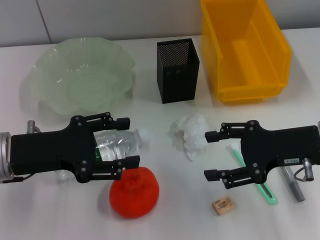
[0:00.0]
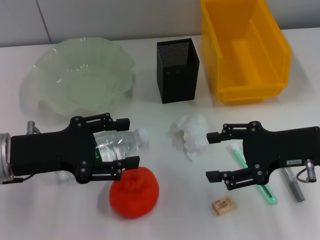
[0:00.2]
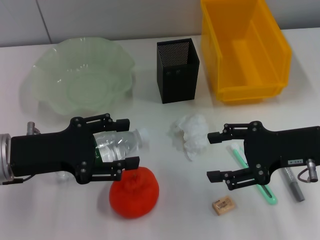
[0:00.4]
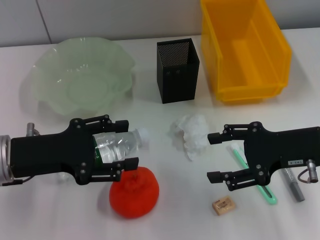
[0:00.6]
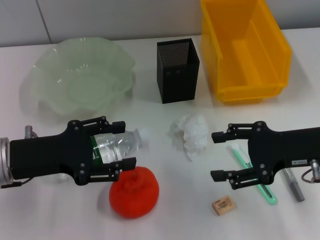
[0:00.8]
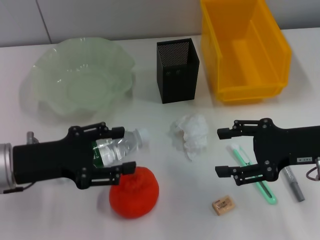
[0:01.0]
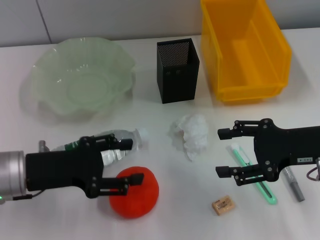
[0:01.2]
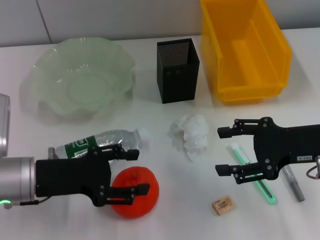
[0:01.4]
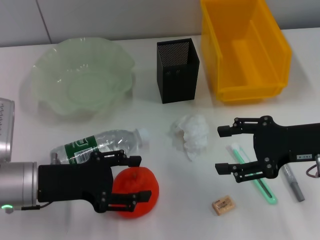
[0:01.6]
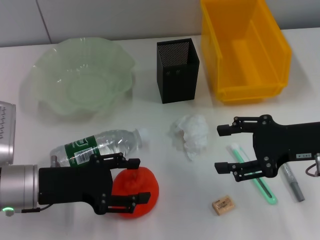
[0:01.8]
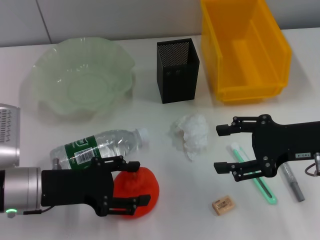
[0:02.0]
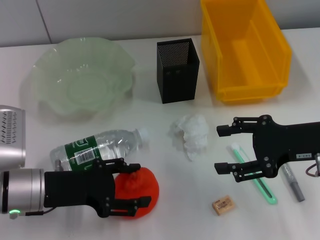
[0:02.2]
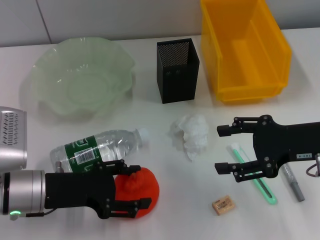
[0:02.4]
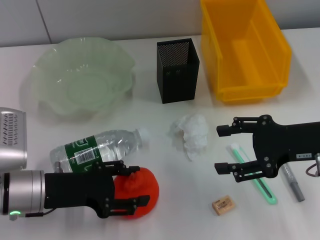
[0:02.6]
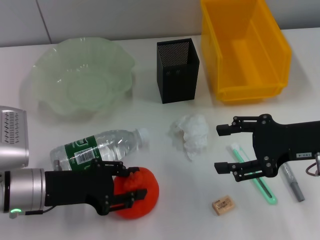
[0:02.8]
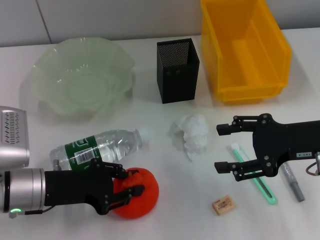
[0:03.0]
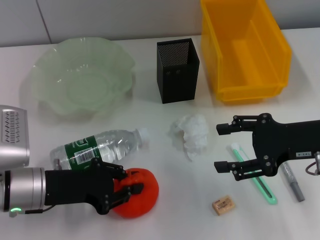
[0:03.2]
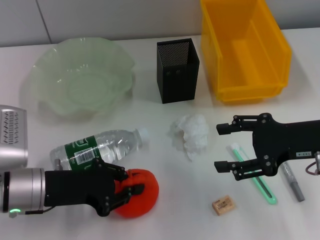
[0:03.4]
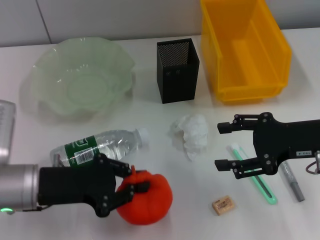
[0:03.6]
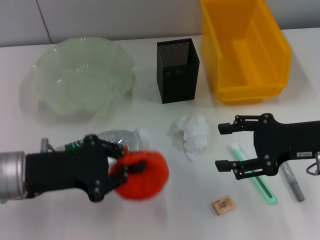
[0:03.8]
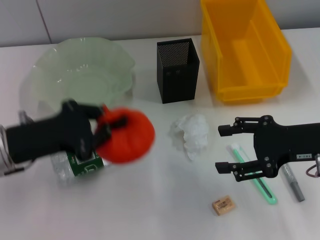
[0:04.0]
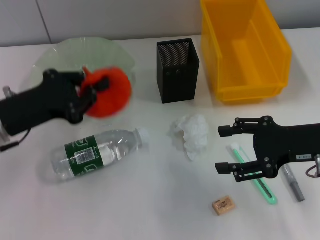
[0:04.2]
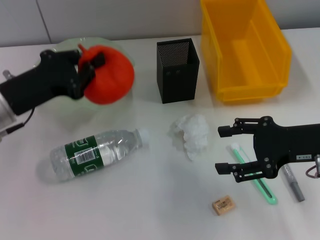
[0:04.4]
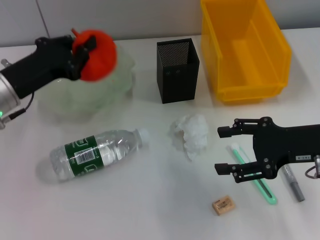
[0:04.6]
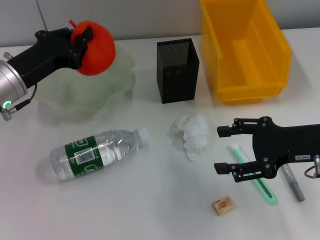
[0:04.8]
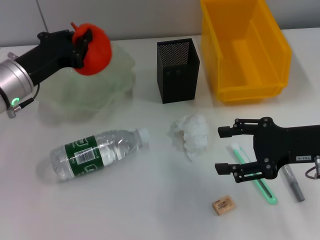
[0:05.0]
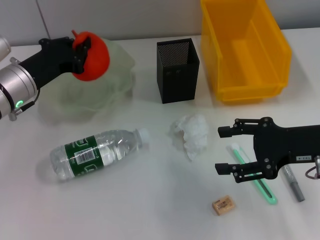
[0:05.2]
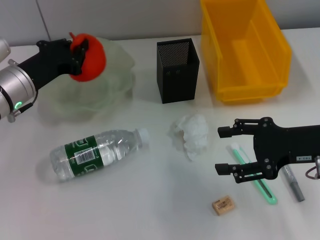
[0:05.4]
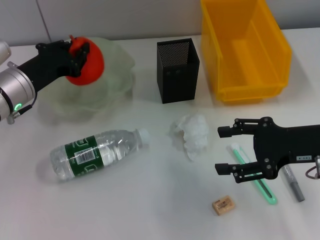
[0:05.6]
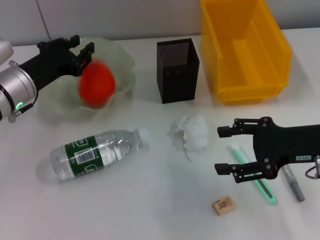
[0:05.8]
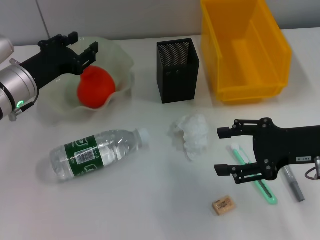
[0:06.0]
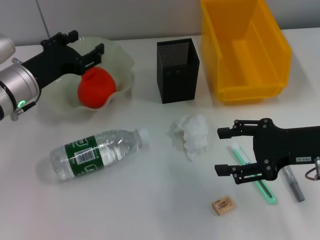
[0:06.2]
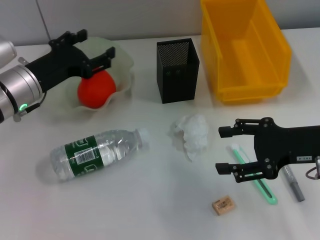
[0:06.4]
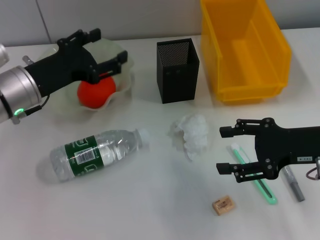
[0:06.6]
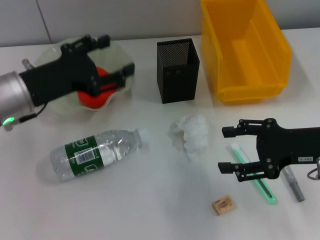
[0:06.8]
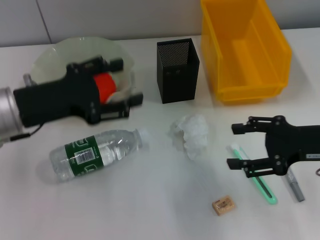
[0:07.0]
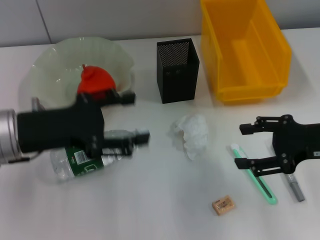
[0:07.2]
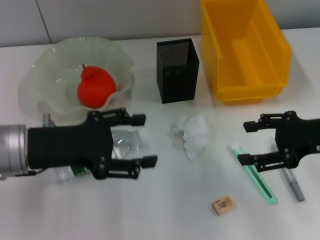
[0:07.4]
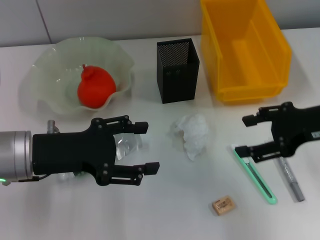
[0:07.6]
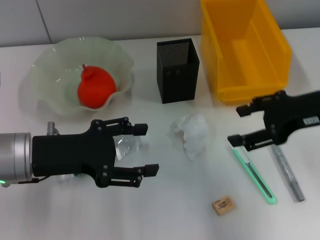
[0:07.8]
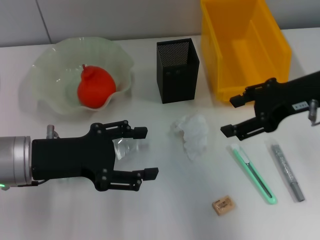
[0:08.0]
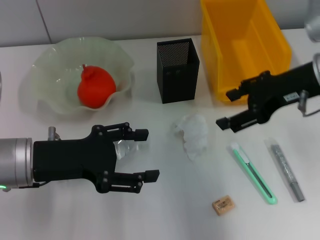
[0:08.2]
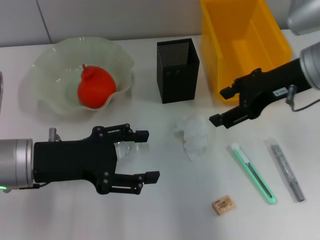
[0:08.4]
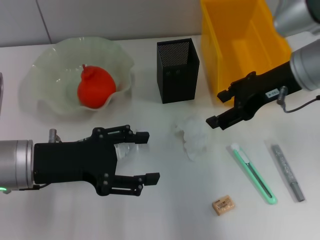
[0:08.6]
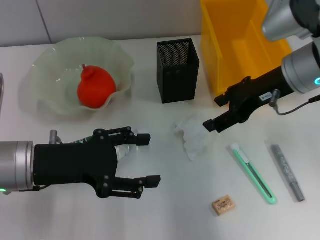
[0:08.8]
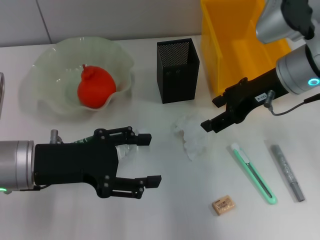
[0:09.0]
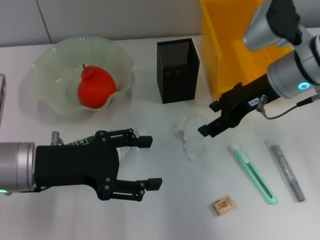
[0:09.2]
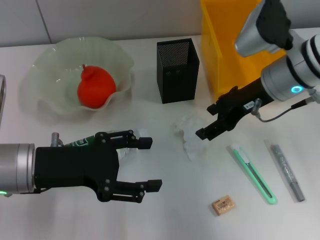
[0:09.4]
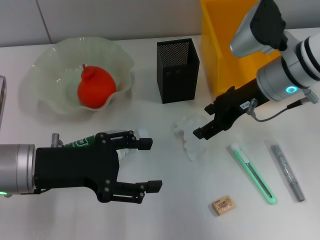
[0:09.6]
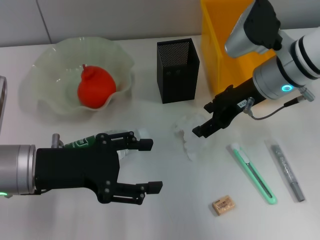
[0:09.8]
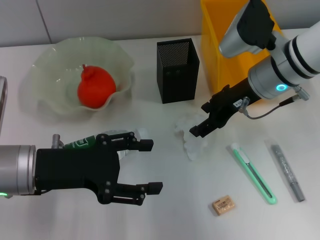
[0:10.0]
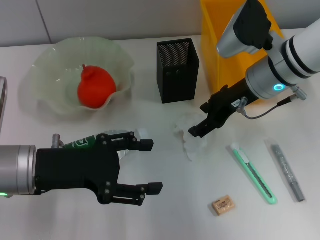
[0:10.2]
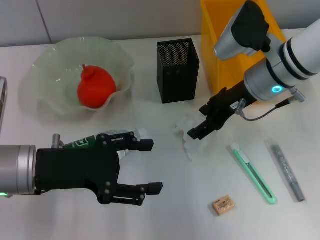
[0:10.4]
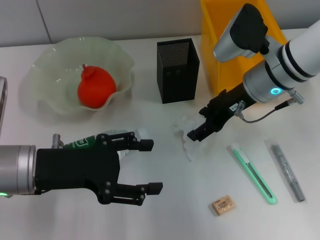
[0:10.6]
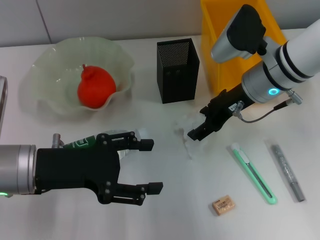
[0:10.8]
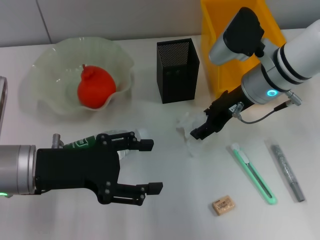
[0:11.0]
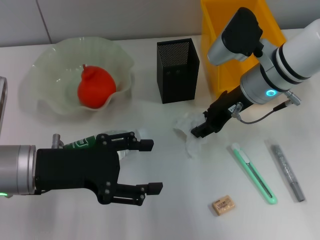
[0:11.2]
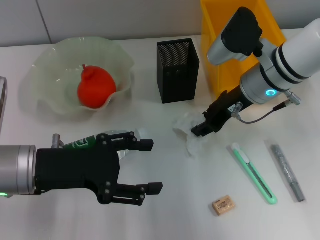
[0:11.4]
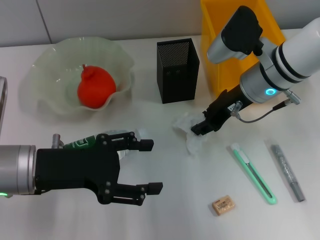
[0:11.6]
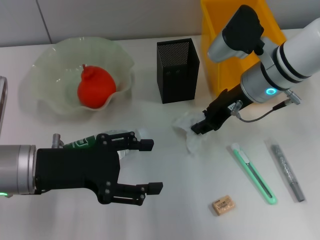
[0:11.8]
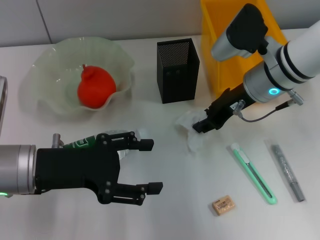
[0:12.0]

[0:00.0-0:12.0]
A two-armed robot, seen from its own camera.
Step, 0:00.0 to 0:03.0: Grab the orange with the left hand.
Step, 0:03.2 to 0:06.0: Place the orange into the fruit bowl with the left hand.
Step, 0:06.2 to 0:11.6: Grab the paper ball with the right hand.
0:00.0 to 0:01.6: There are only small adjustments of the grippers.
0:01.6 to 0:03.0: The left gripper closes its fingers.
0:03.0 to 0:04.4: The left gripper goes approximately 10 cm upward and forward, and closes up.
0:04.4 to 0:06.0: The left gripper is displaced forward by some 5 cm.
0:06.0 to 0:07.6: The left gripper heads backward, covering roughly 10 cm, and opens up.
0:07.6 to 0:09.0: The right gripper goes approximately 10 cm forward and to the left.
0:09.0 to 0:10.4: The grippers make only small movements.
0:10.4 to 0:12.0: The right gripper closes its fingers.

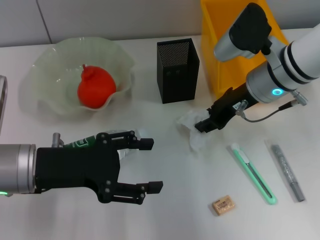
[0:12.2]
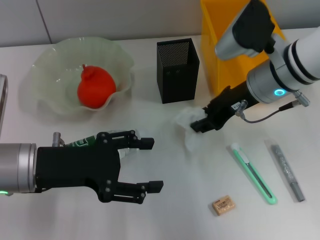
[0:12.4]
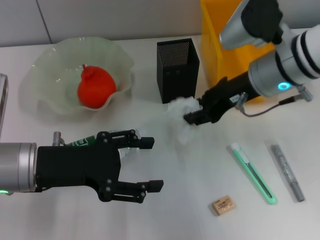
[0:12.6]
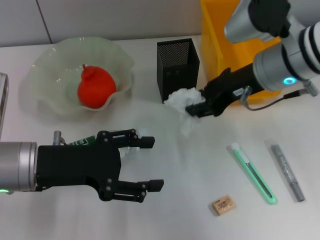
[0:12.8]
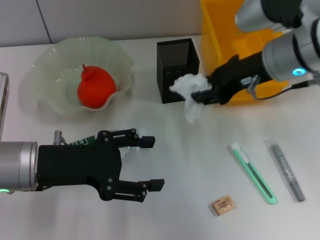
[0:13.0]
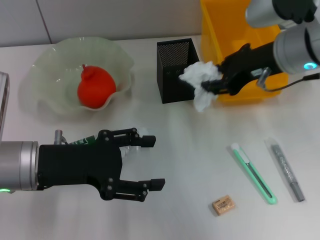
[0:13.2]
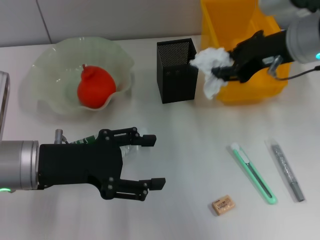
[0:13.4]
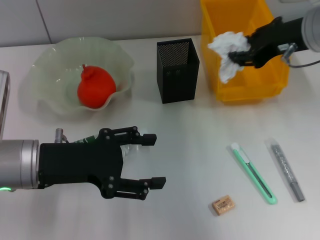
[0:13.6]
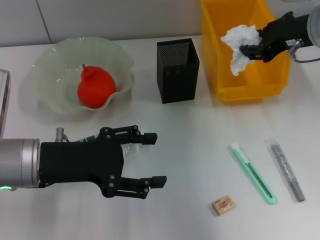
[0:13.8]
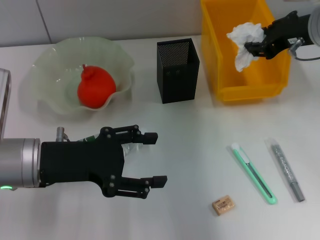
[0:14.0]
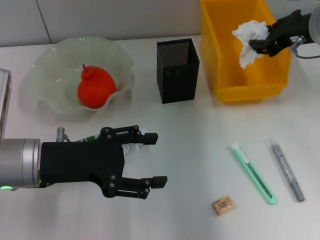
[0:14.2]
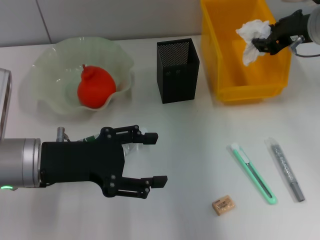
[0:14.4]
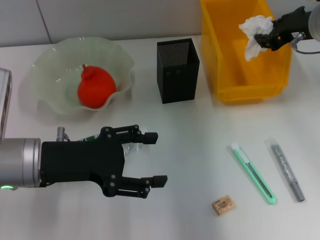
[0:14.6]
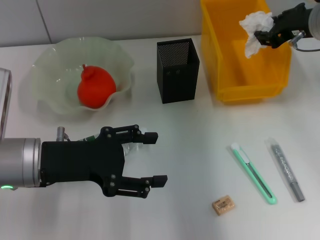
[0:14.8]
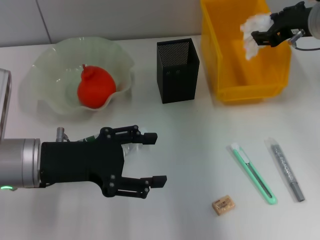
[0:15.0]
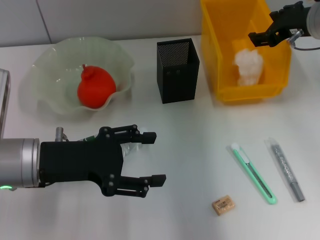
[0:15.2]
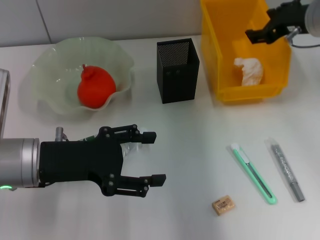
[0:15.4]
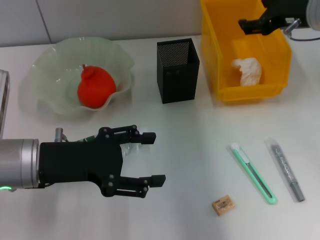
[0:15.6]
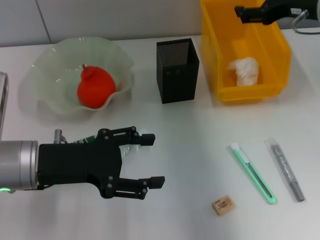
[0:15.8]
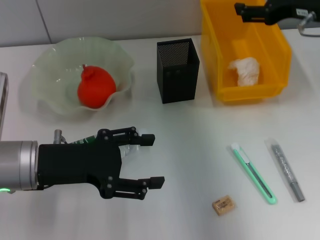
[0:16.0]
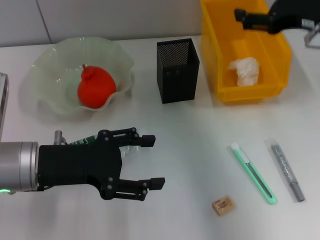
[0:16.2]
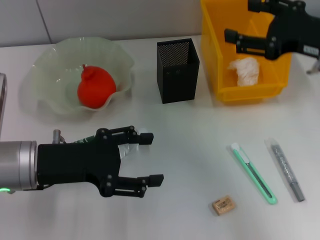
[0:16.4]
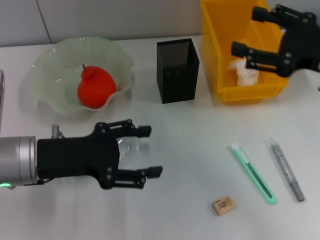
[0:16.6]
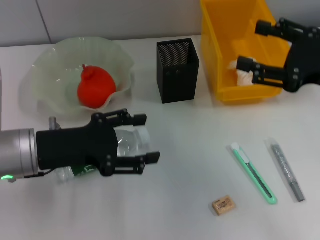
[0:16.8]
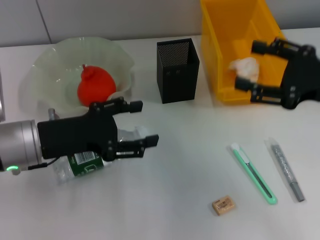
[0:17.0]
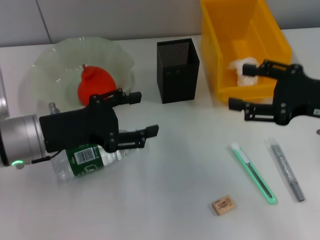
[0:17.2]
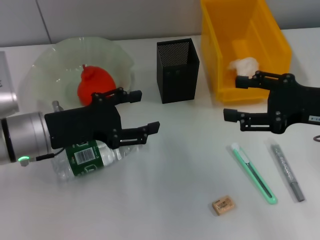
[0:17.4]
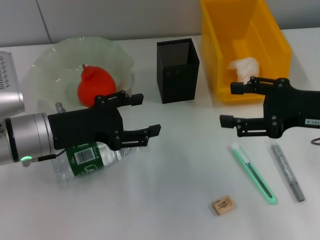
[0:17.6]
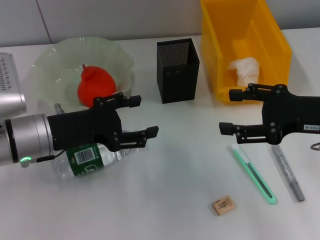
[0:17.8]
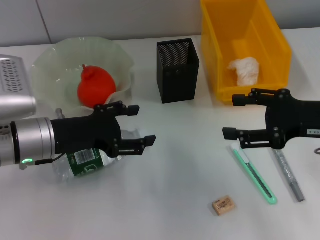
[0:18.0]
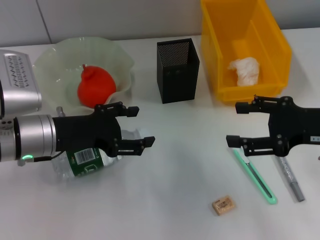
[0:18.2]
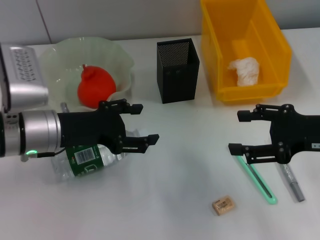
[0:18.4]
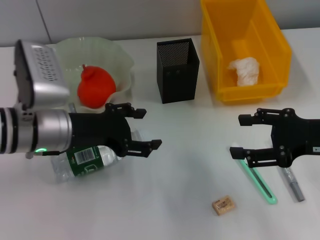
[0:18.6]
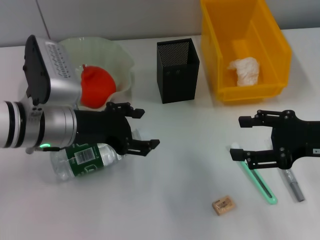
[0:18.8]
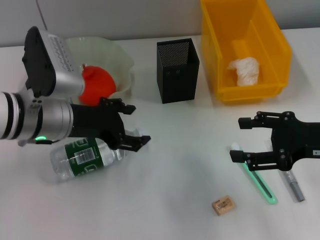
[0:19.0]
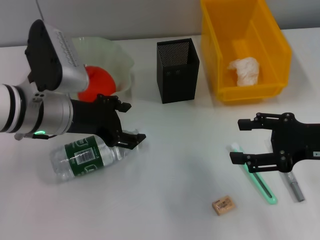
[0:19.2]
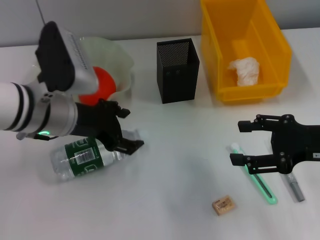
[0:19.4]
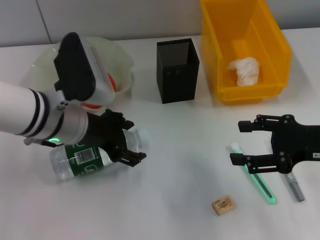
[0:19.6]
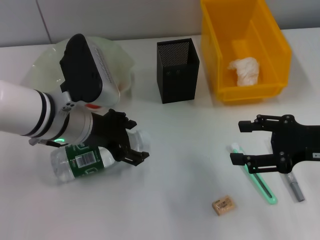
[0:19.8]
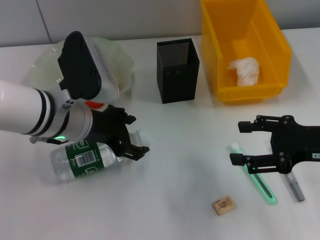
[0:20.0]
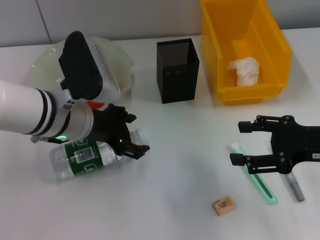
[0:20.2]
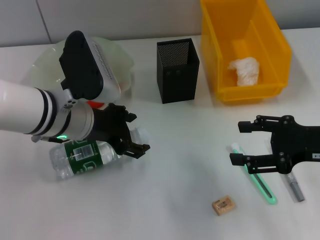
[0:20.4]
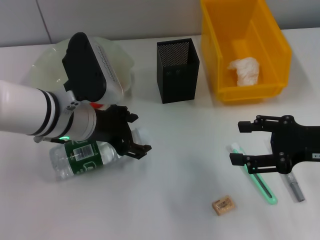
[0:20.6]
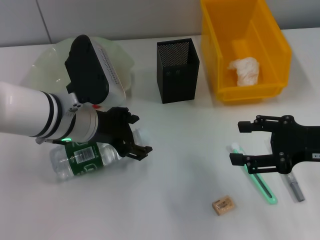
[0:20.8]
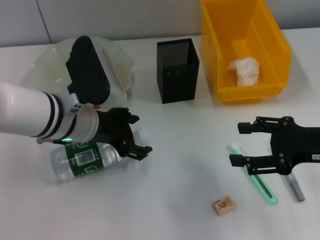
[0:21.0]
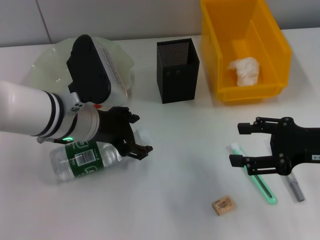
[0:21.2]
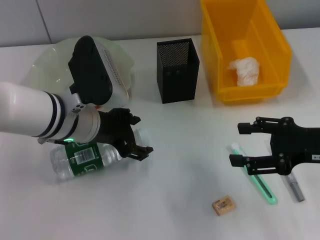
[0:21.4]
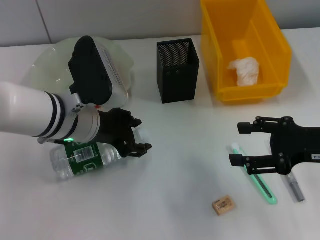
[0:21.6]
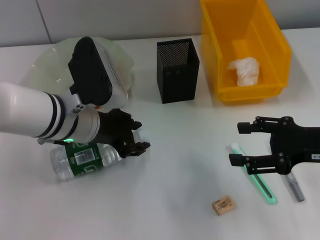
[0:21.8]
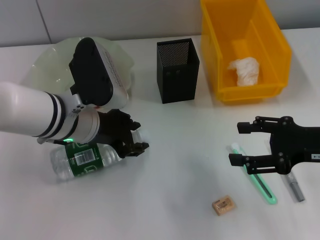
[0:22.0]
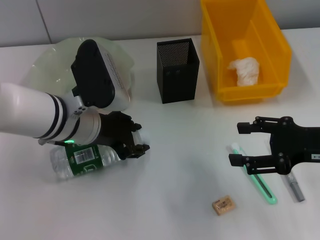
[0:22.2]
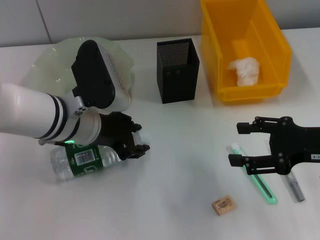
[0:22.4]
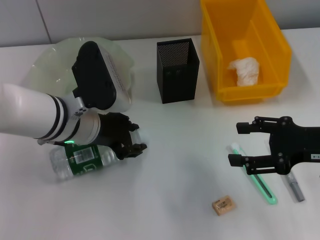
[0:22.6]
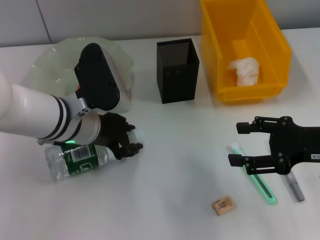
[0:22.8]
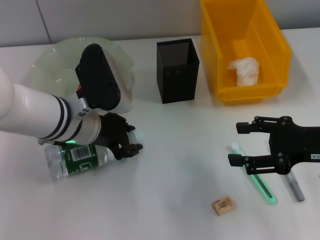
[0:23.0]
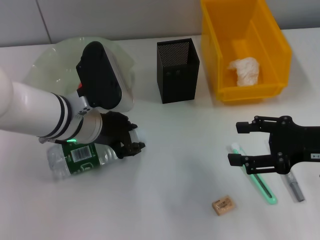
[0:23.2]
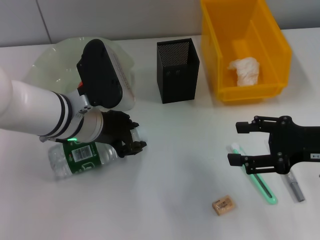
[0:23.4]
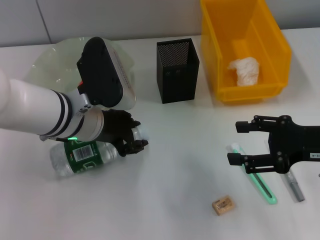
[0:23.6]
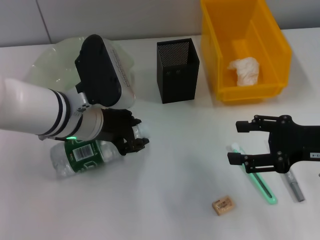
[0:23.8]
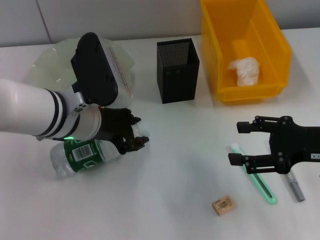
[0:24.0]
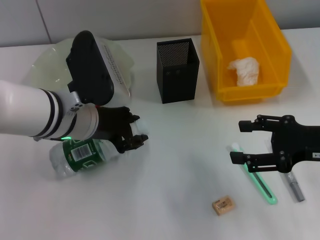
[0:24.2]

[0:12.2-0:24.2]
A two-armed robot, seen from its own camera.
Step, 0:12.2 to 0:15.4: Place the paper ball into the trash can with the right hand.
Step, 0:15.6 to 0:22.6: Grab the water bottle with the left hand.
0:12.2 to 0:13.8: The right gripper moves upward and to the right, some 10 cm.
0:13.8 to 0:15.2: The grippers make only small movements.
0:15.2 to 0:16.6: The right gripper goes about 15 cm backward, and opens up.
0:18.2 to 0:19.8: The left gripper shifts roughly 5 cm to the right.
0:19.8 to 0:21.2: The two grippers keep their place.
0:21.2 to 0:22.6: The left gripper closes up.
0:22.6 to 0:24.2: There are only small adjustments of the grippers.
